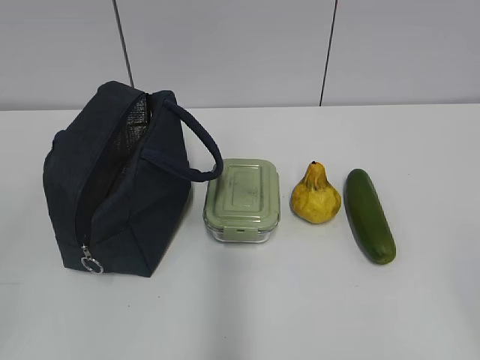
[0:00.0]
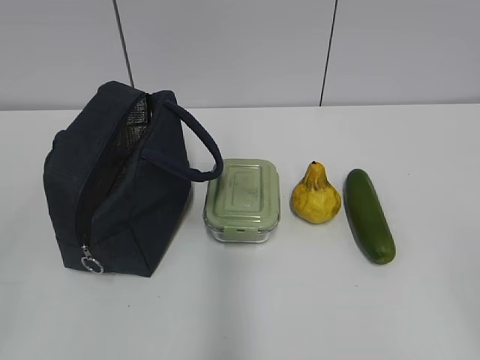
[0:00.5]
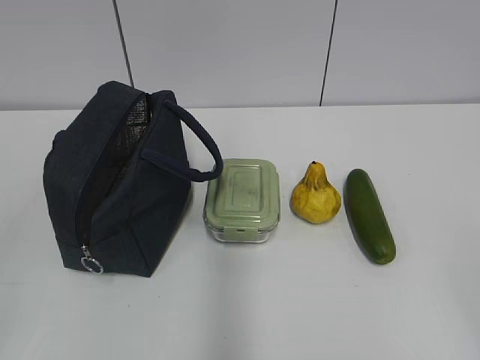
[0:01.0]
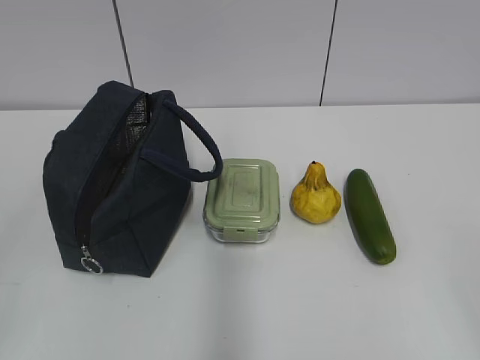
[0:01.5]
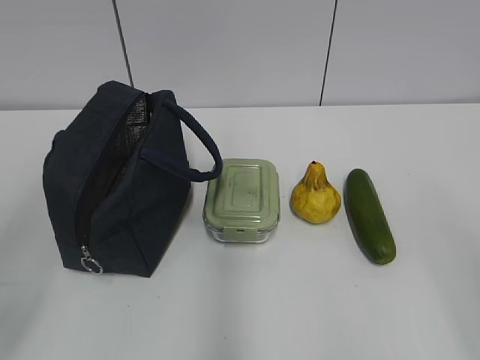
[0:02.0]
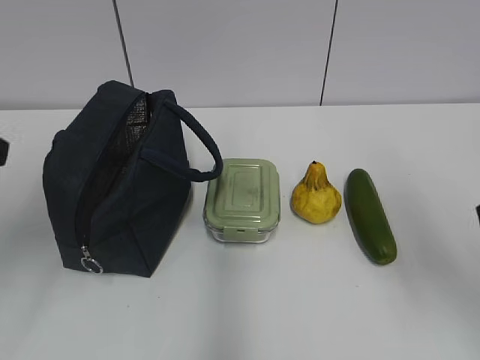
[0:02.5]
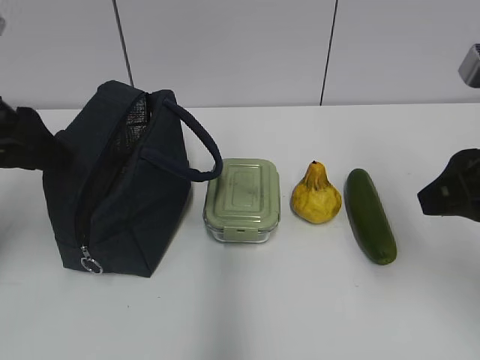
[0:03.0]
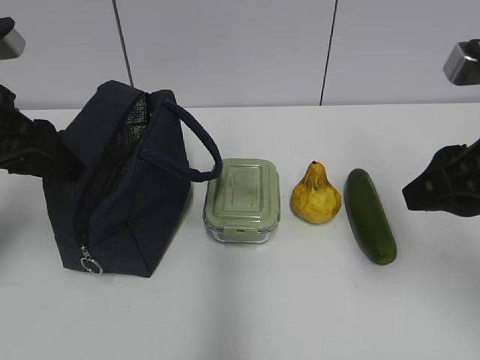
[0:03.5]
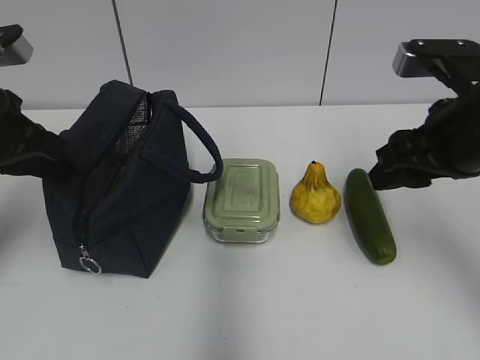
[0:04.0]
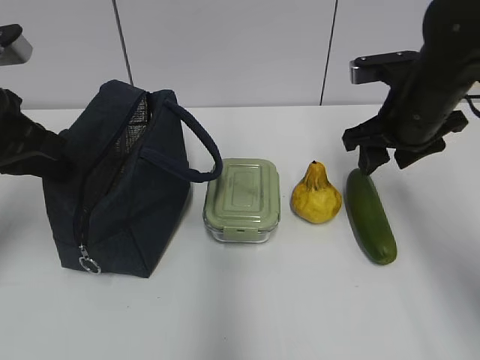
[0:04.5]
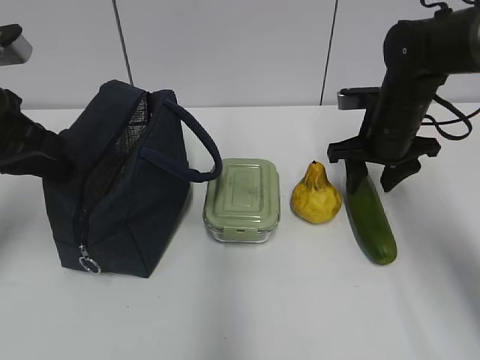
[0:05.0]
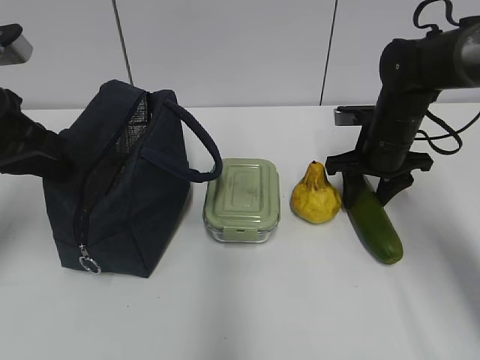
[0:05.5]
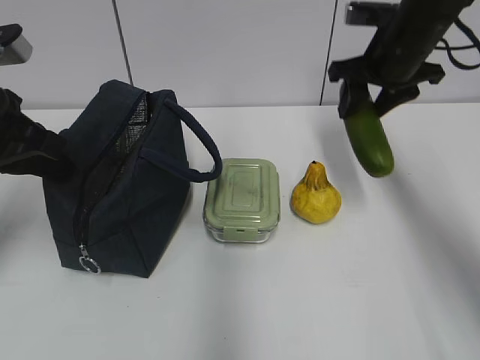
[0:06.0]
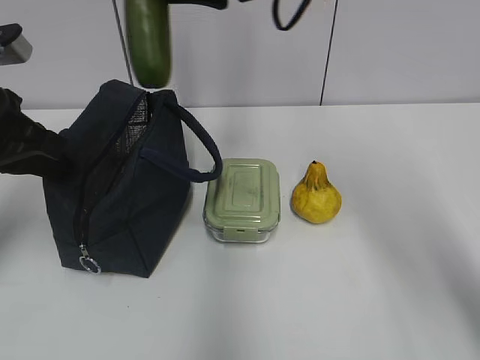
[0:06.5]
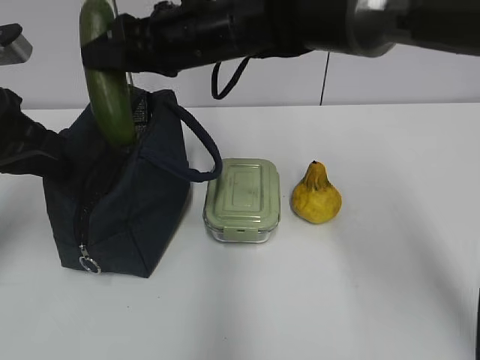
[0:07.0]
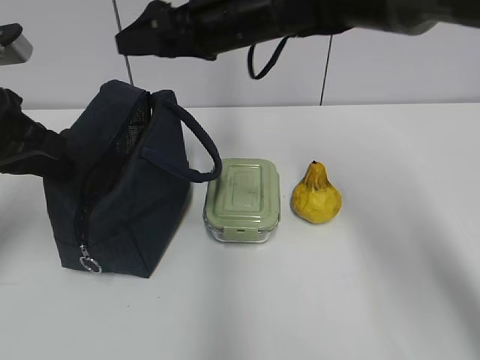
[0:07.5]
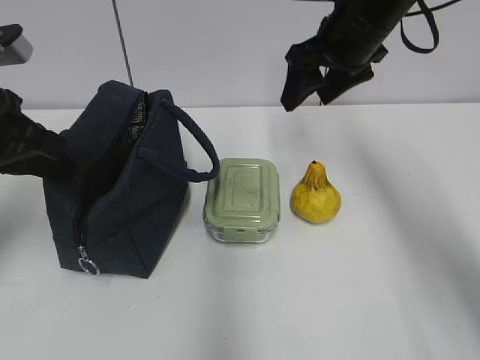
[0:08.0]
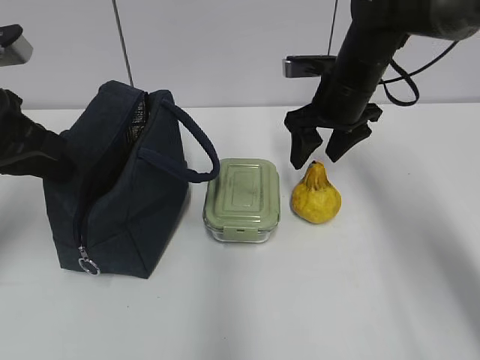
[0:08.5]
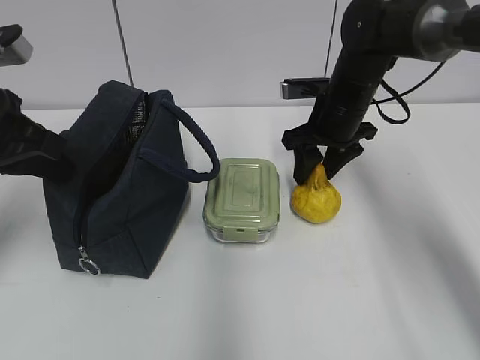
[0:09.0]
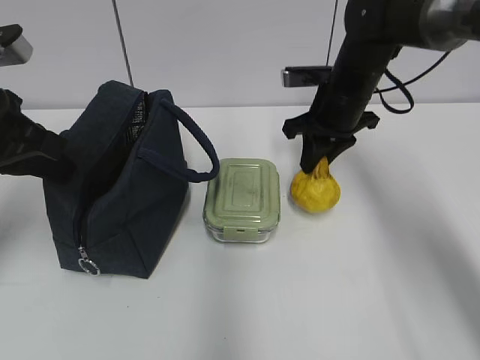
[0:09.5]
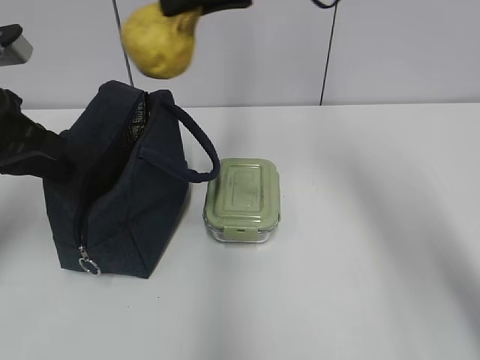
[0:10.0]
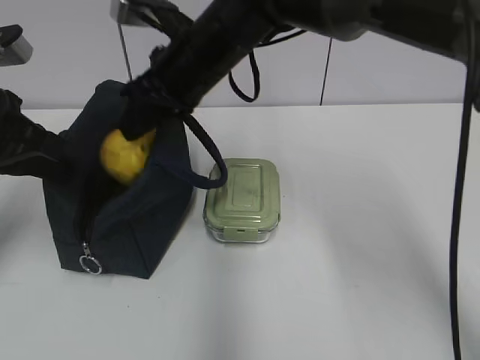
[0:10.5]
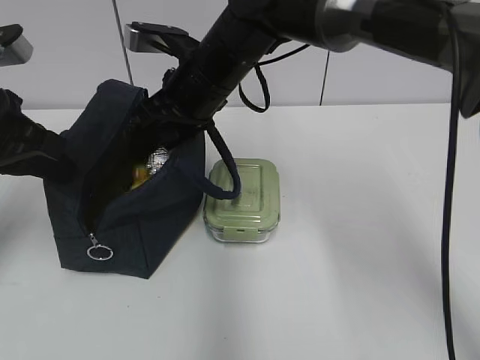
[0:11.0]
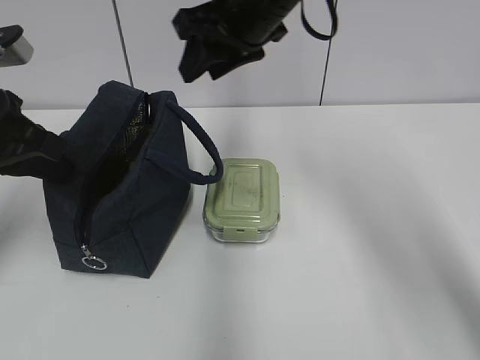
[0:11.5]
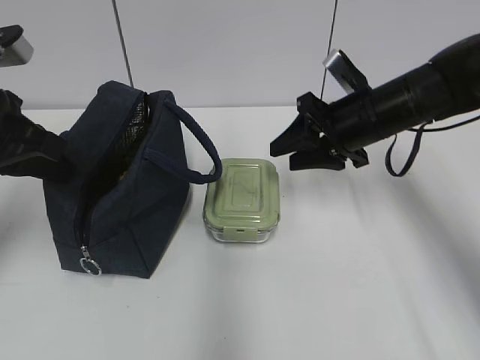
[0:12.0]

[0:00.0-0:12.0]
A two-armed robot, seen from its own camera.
Step, 0:00.0 to 0:05.0: Grab the cucumber with your right hand.
Step, 0:08.0 to 0:09.0: Grab the pear with your right hand.
Step, 0:09.5 to 0:11.5: Place it into the bag with your right hand.
0:02.0 to 0:04.0: The grippers both shift forward by roughly 20 cm. The left gripper closes.
0:04.0 to 0:06.0: The right gripper moves forward, about 15 cm.
0:06.0 to 0:08.0: The right gripper goes to the left and returns, roughly 20 cm each way.
0:08.0 to 0:10.0: The right gripper heads to the left and upward, covering about 15 cm, and closes its fingers.
0:10.0 to 0:12.0: The right gripper is displaced downward and to the right by about 20 cm, and opens up.

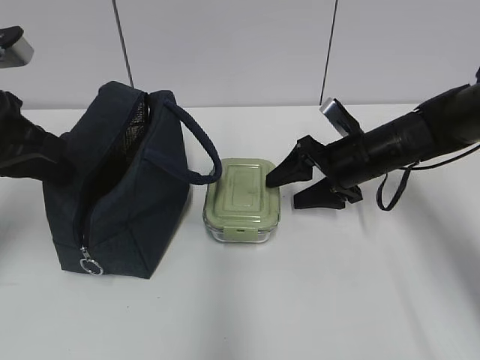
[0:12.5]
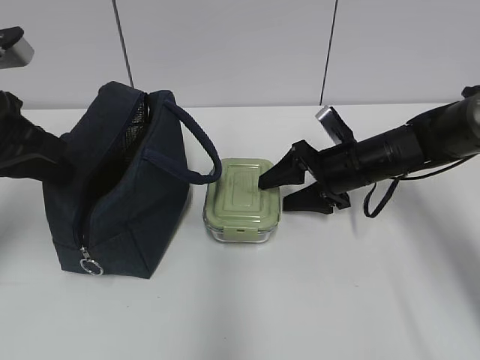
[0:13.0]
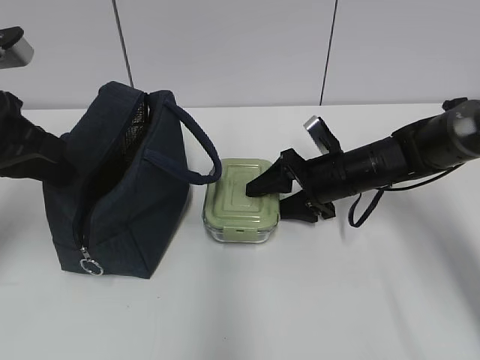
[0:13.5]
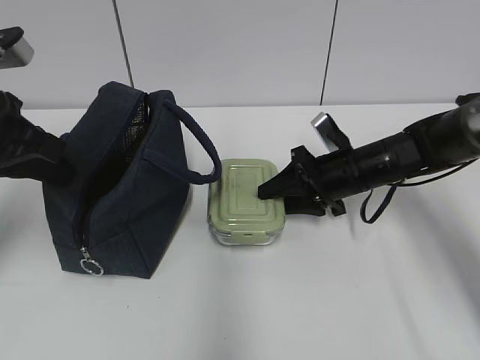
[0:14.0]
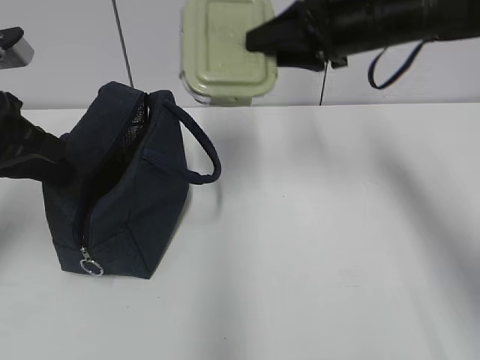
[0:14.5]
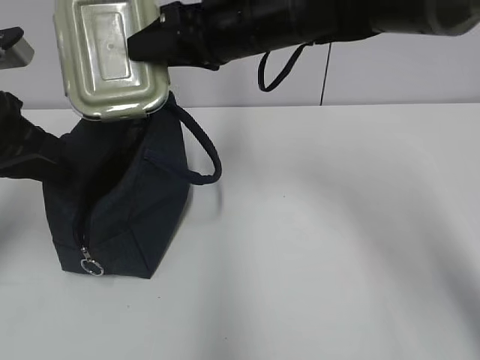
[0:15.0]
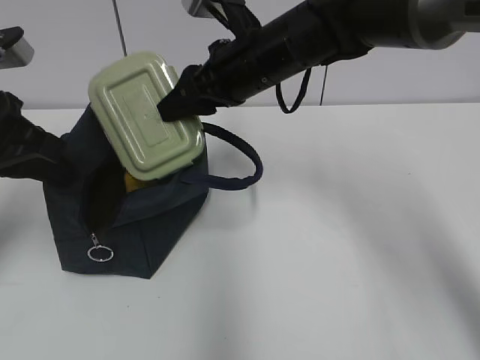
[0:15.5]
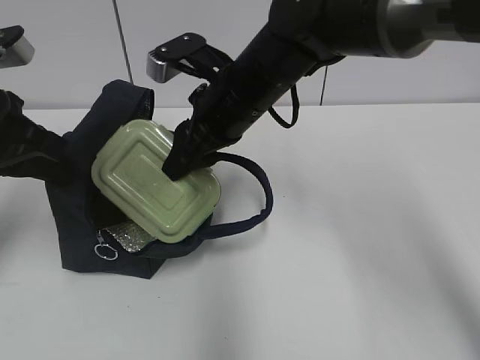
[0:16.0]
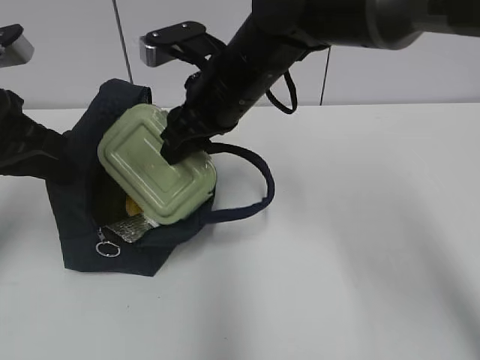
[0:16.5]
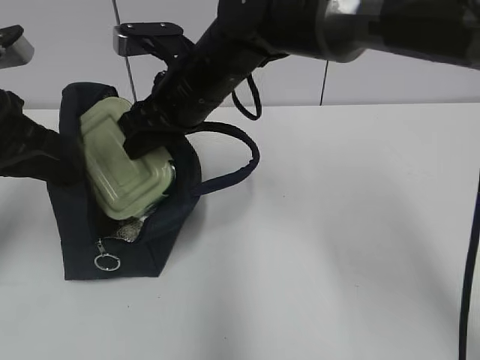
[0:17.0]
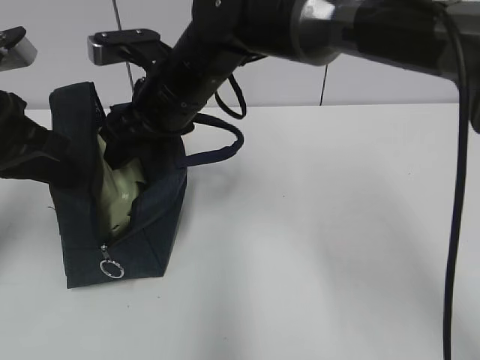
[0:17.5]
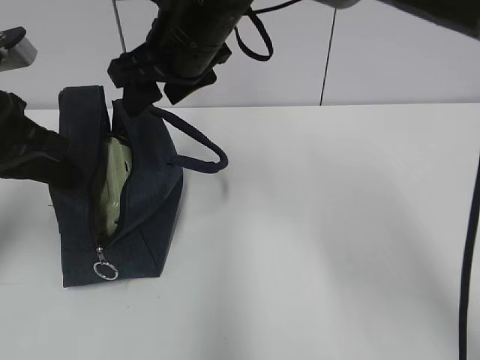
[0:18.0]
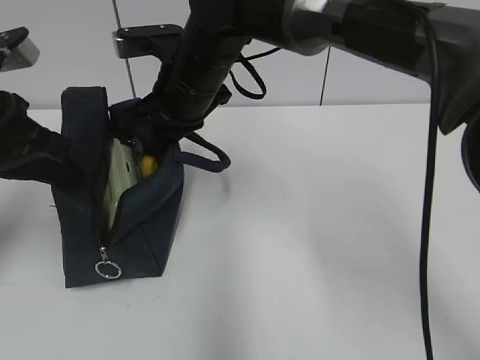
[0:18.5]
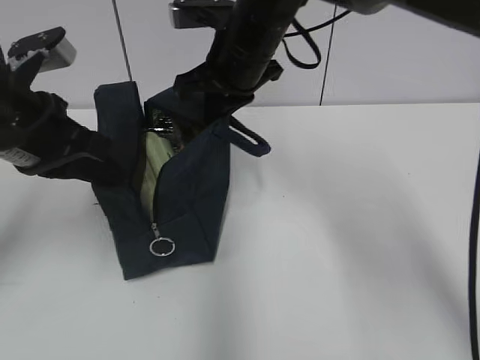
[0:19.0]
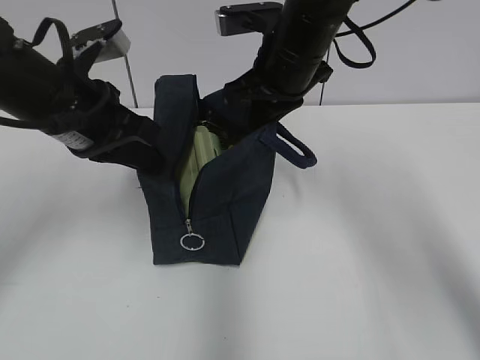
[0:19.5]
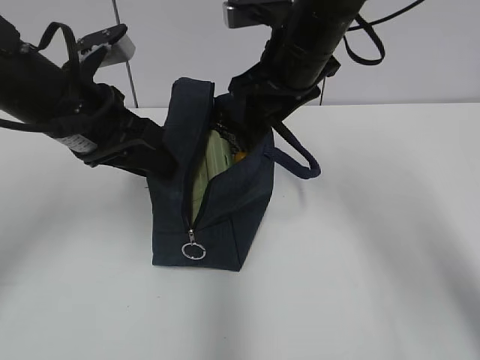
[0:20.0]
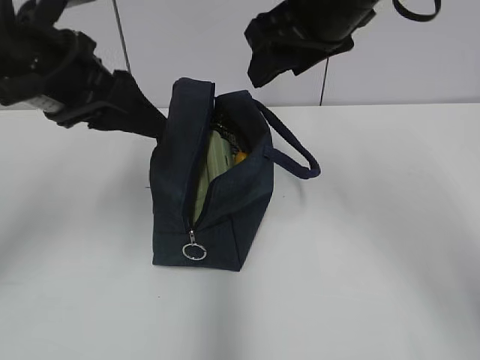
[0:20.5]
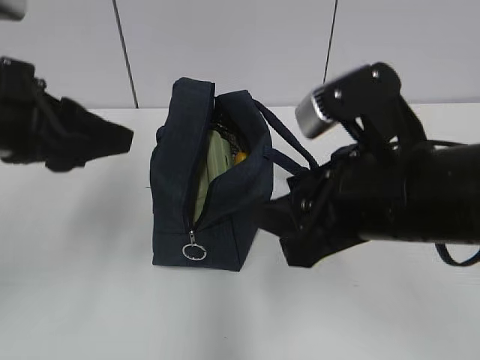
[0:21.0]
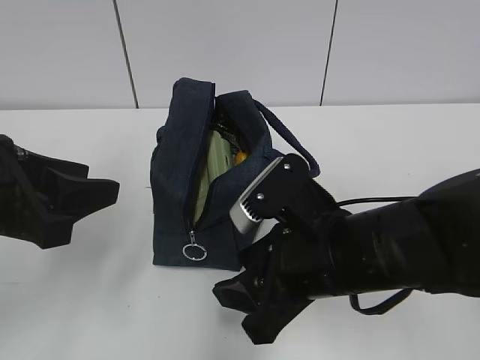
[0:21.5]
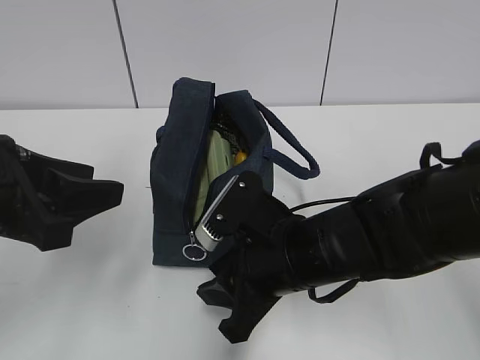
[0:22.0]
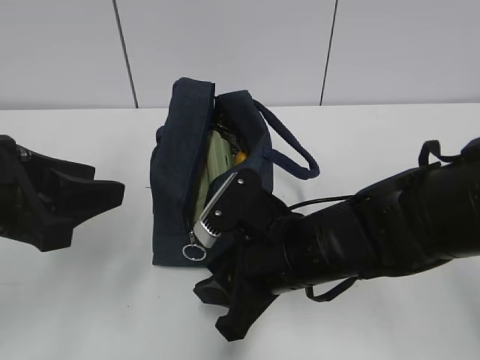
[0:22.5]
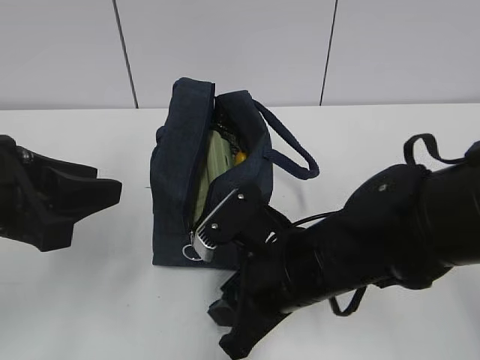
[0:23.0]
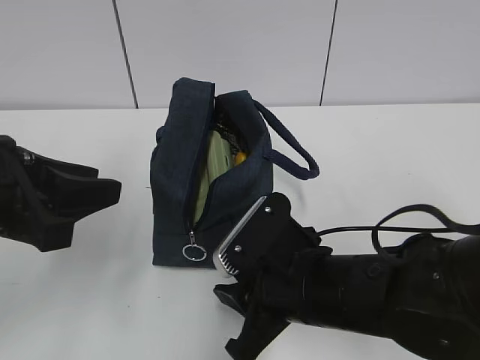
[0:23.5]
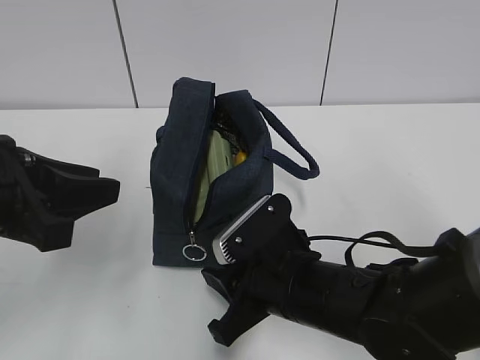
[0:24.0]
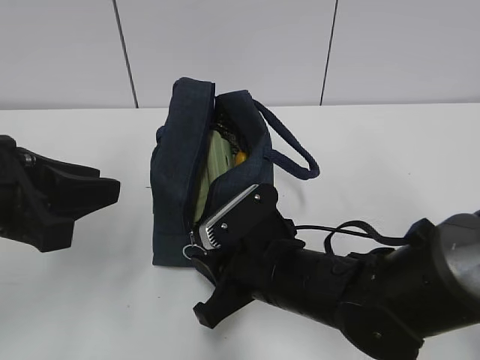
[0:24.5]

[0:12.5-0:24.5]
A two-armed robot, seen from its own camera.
Step, 0:14.0 to 0:17.5: Place it into the bag with your right hand.
Step, 0:18.0 to 0:18.5: Grab the lunch bag with your right hand.
0:12.5 to 0:14.5: The right gripper travels upward by some 20 cm, and closes.
0:14.5 to 0:16.5: The right gripper travels to the left by some 15 cm.
0:16.5 to 0:18.5: The right gripper closes.
0:18.5 to 0:20.5: The left gripper is displaced to the right by approximately 5 cm, and opens up; the right gripper moves to the right, upward and backward, about 20 cm, and opens its fingers.
0:20.5 to 0:22.5: The right gripper is displaced downward and backward by approximately 20 cm, and closes up; the left gripper shifts approximately 10 cm backward and downward.

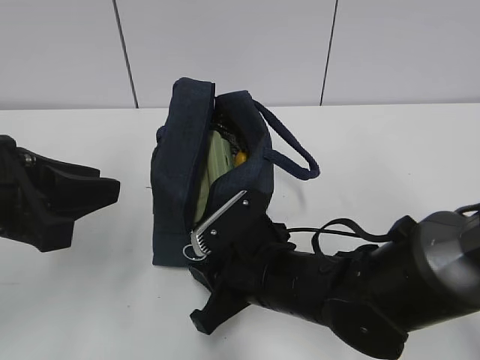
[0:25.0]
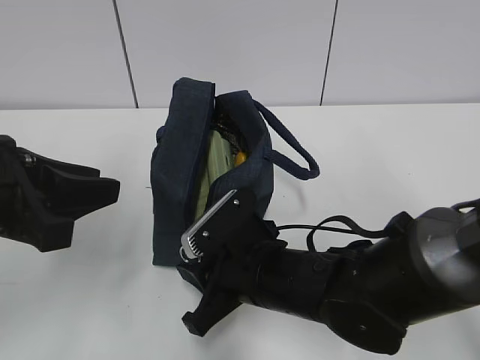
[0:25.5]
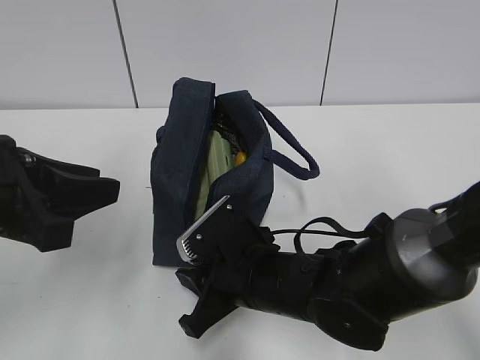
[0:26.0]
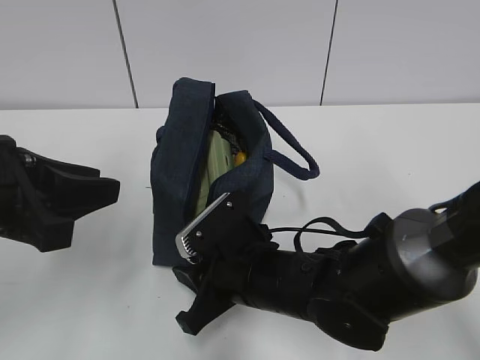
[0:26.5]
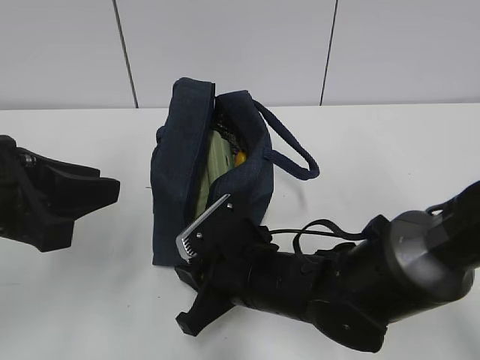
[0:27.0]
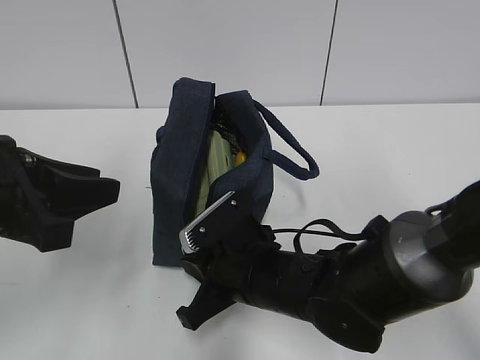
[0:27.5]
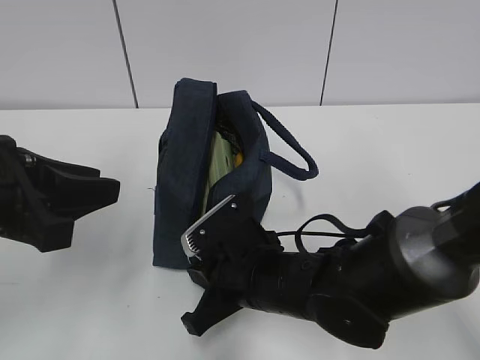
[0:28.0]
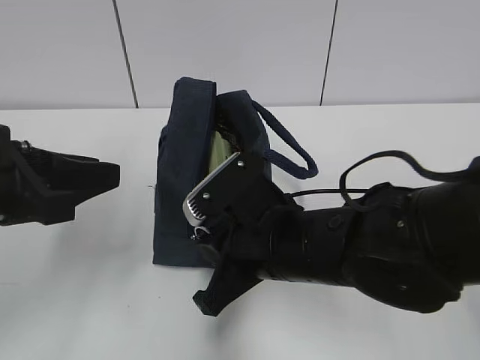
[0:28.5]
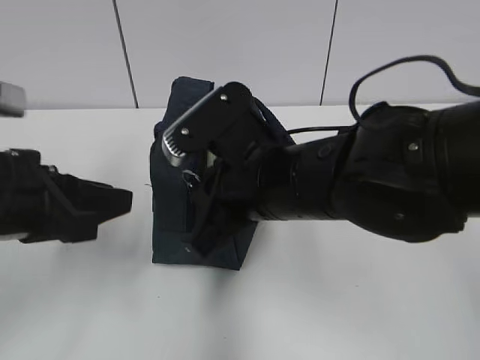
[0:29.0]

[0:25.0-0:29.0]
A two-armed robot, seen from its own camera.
0:25.0 to 0:27.0: The grippers move only a little.
0:27.0 to 0:29.0: The right gripper travels upward by roughly 15 cm.
